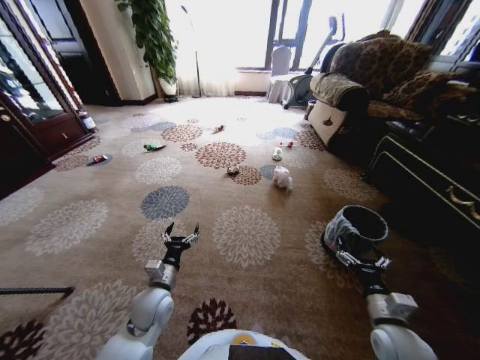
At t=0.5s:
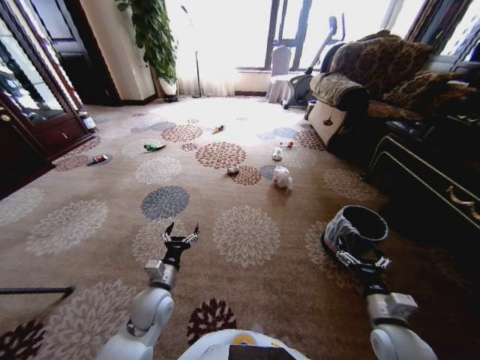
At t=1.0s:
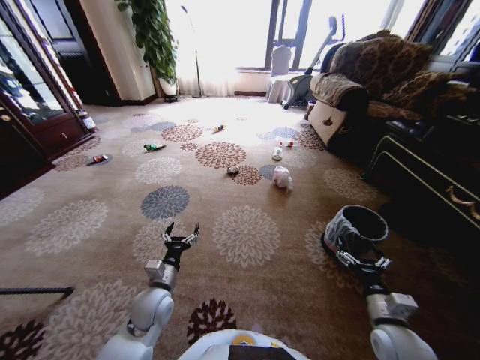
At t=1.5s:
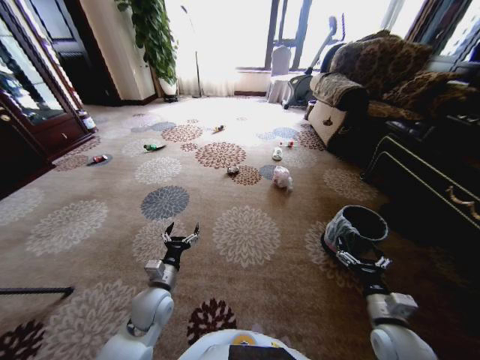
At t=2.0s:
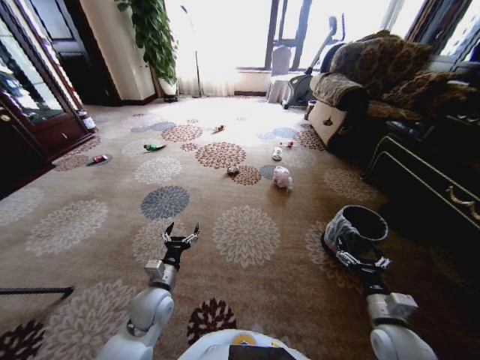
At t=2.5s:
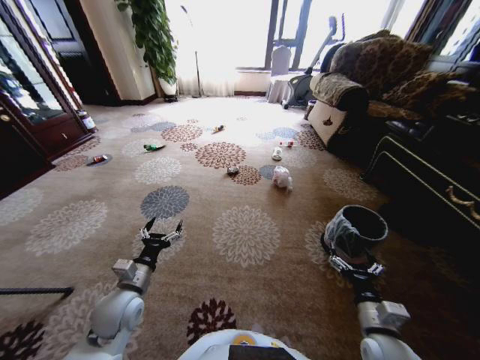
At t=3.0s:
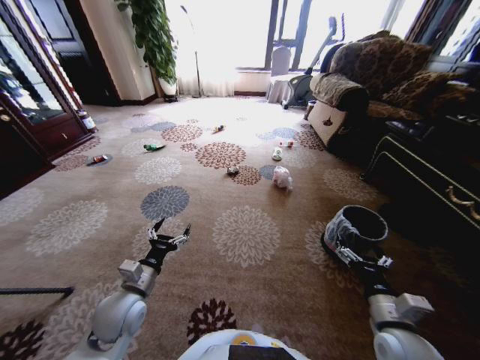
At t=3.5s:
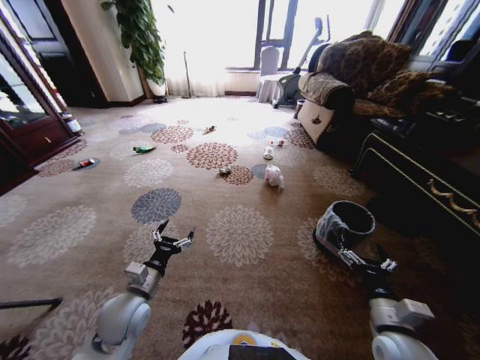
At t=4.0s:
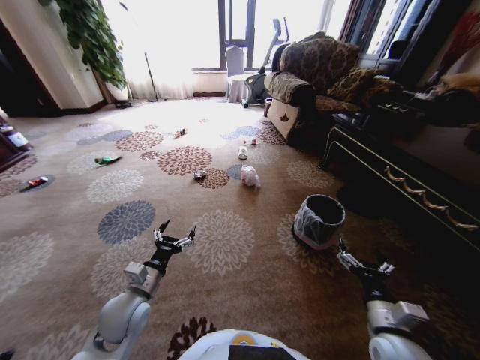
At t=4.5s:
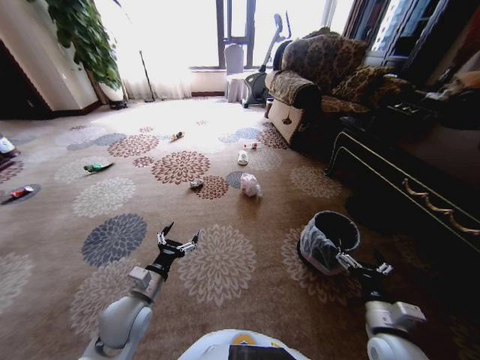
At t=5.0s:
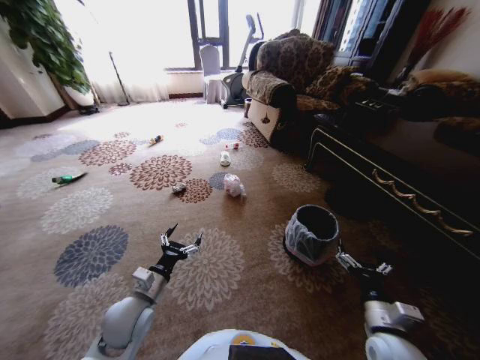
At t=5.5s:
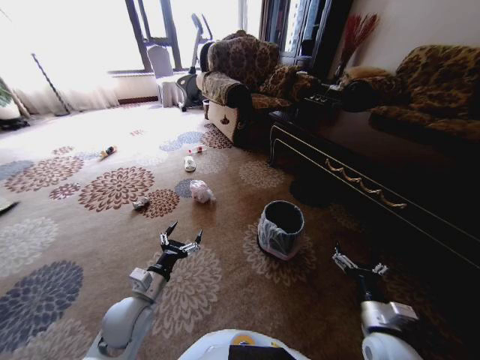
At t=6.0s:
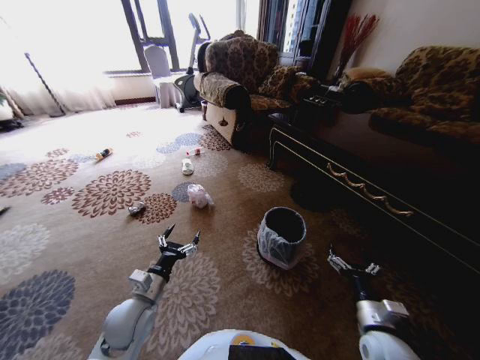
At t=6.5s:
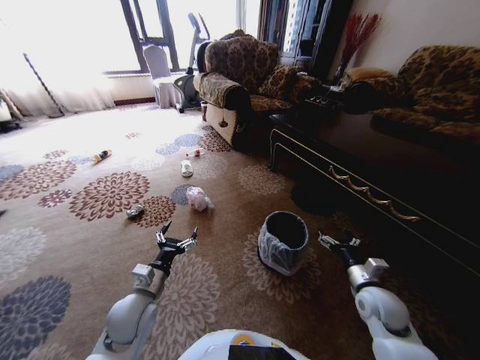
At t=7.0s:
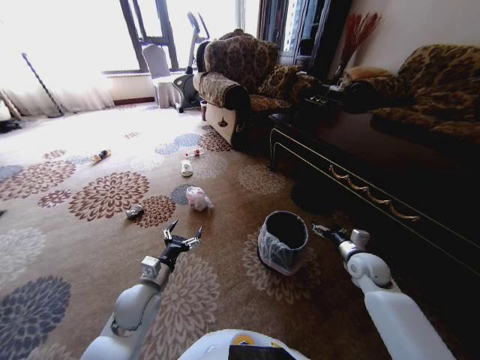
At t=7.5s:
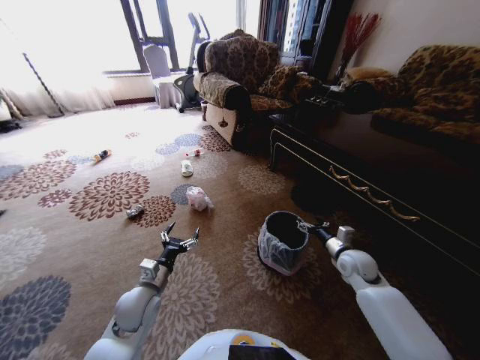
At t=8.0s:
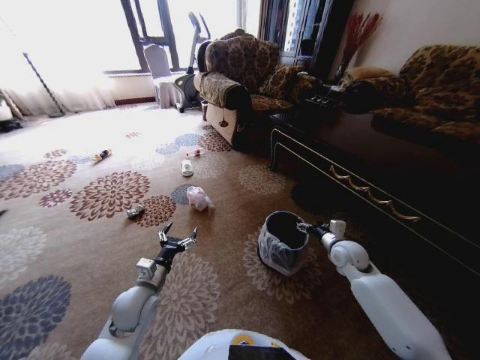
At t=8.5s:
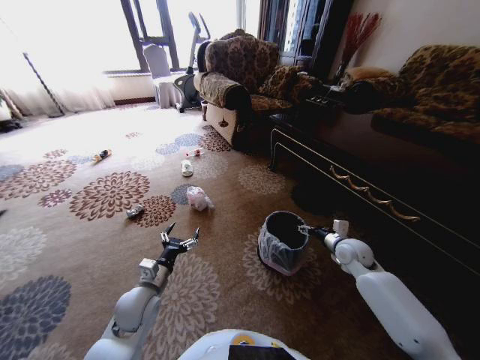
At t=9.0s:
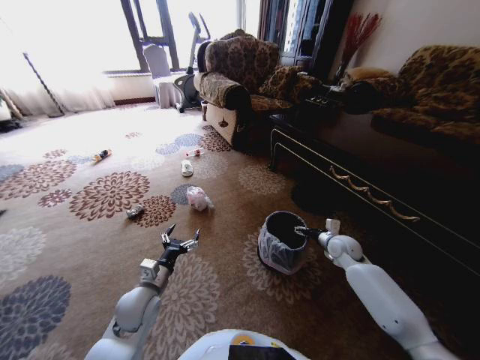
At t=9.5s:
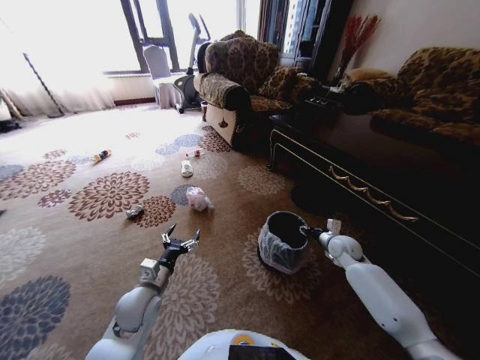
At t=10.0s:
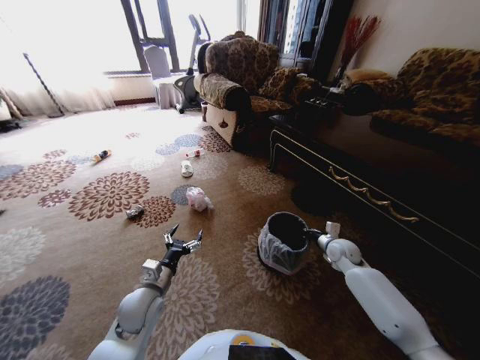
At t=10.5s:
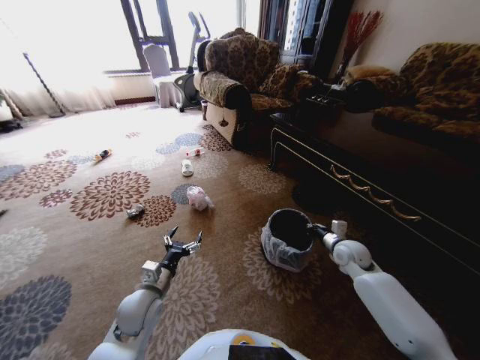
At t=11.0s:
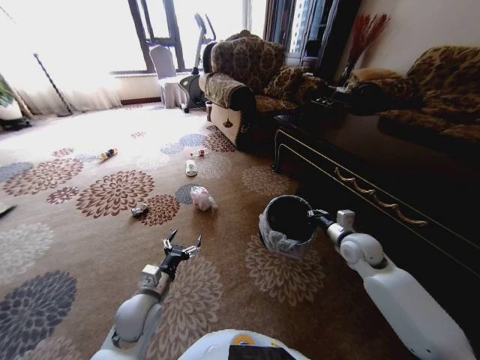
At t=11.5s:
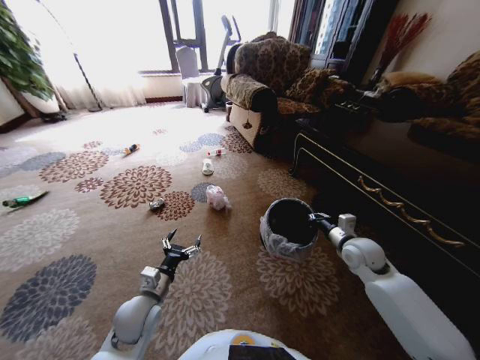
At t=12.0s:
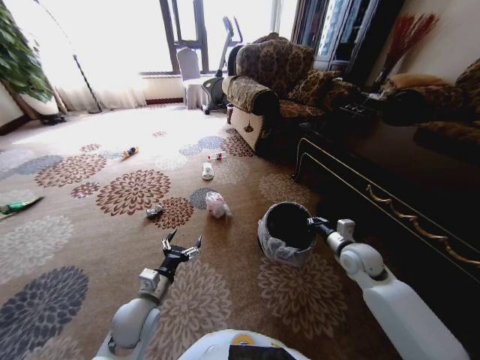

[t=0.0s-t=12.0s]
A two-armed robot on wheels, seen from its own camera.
Task of the whole recording: Pick up the trash from the ground and place it into the trash bin.
t=2.0s to t=4.0s: The left gripper moves approximately 5 cm.
t=6.0s to t=8.0s: The right gripper travels forward by roughly 25 cm.
t=8.0s to t=10.0s: The right gripper moves about 5 cm, and closes its fingers.
t=10.0s to t=12.0s: The right gripper shifts about 10 cm upward and backward.

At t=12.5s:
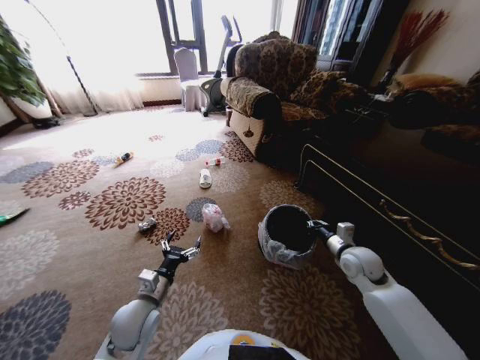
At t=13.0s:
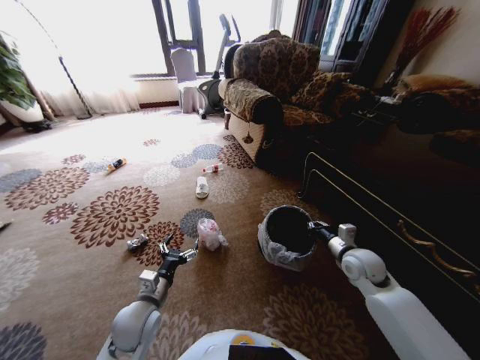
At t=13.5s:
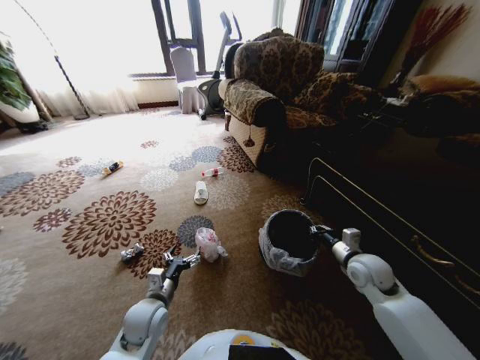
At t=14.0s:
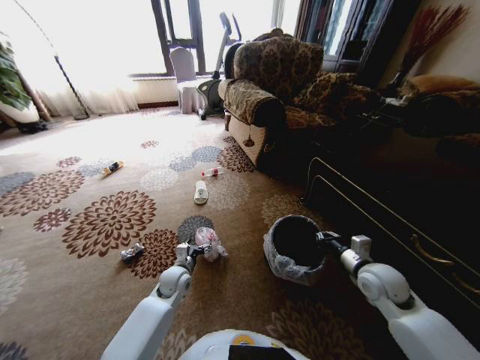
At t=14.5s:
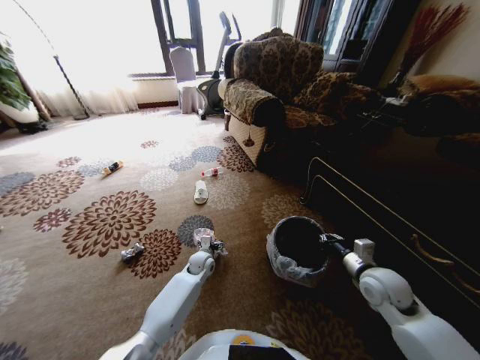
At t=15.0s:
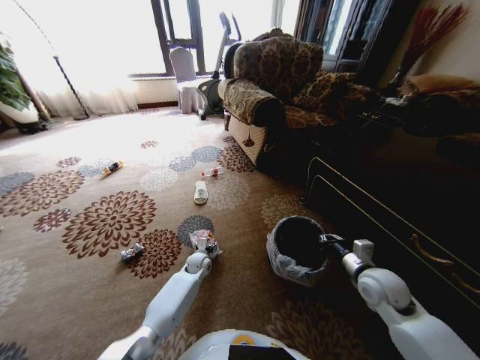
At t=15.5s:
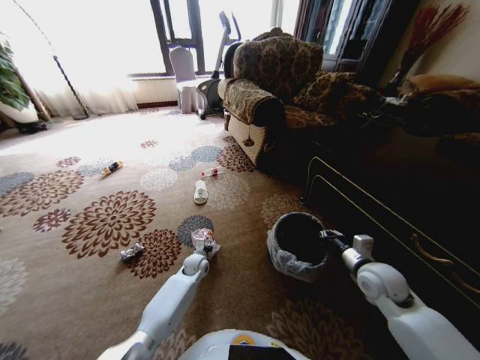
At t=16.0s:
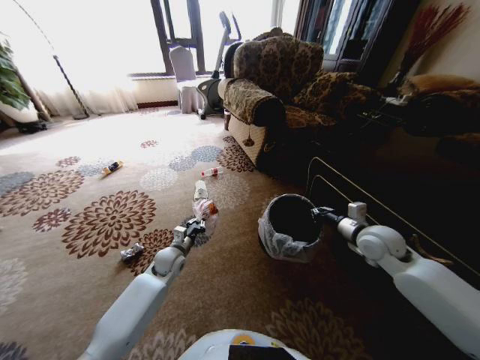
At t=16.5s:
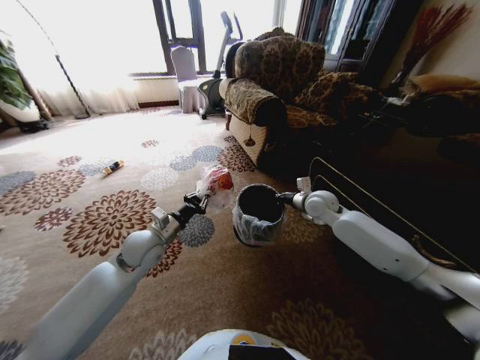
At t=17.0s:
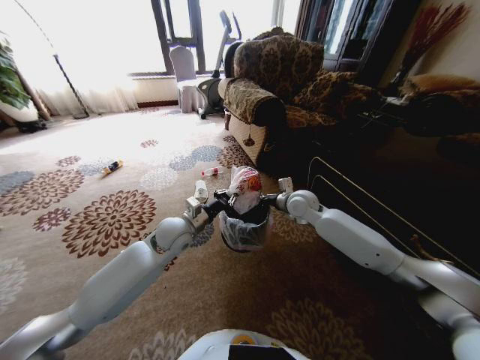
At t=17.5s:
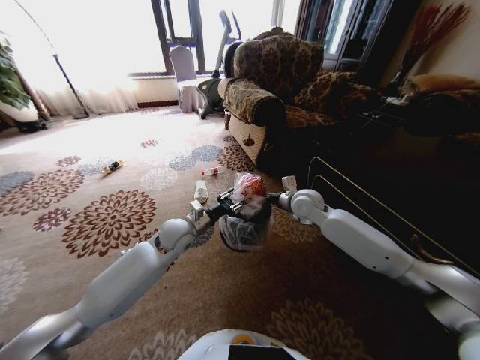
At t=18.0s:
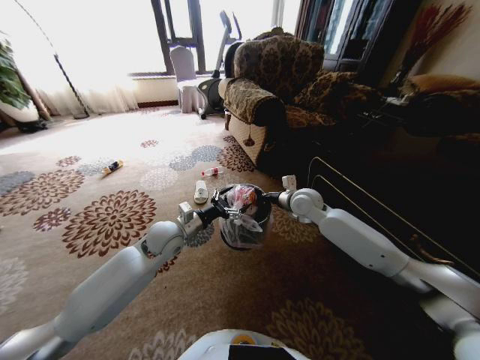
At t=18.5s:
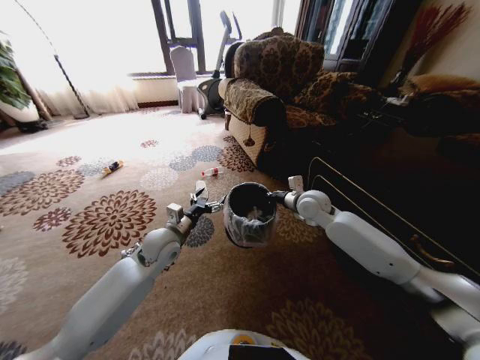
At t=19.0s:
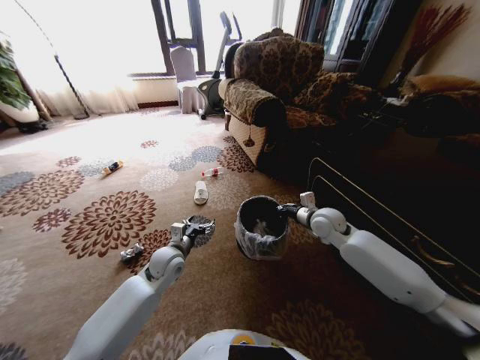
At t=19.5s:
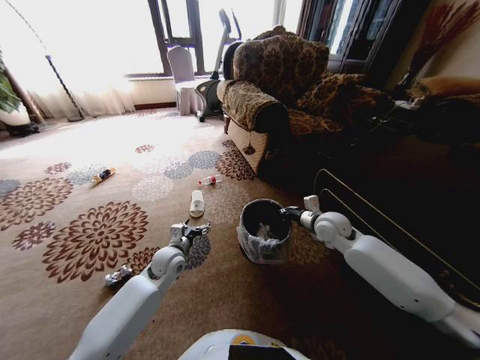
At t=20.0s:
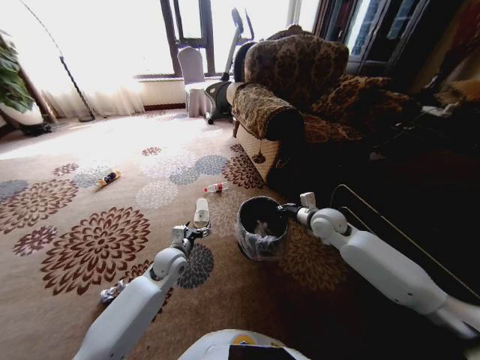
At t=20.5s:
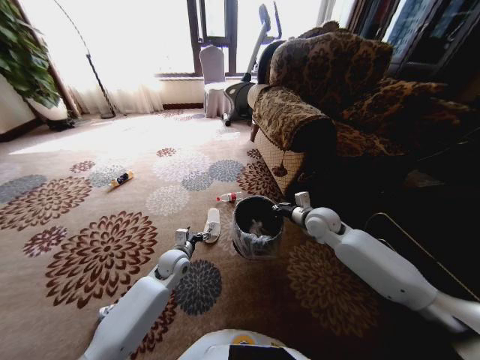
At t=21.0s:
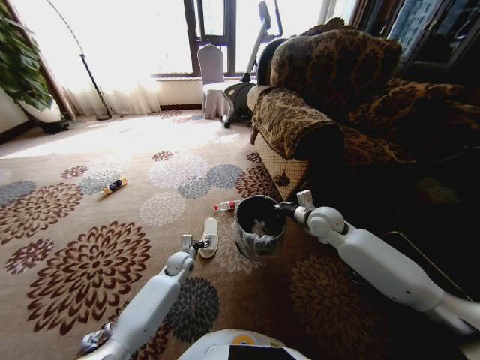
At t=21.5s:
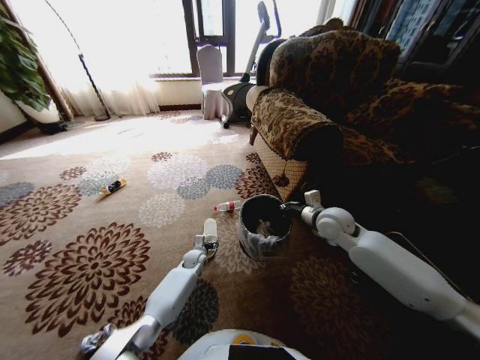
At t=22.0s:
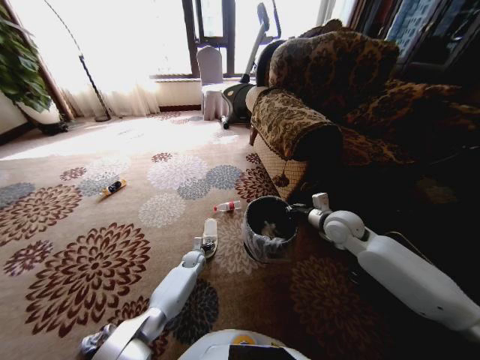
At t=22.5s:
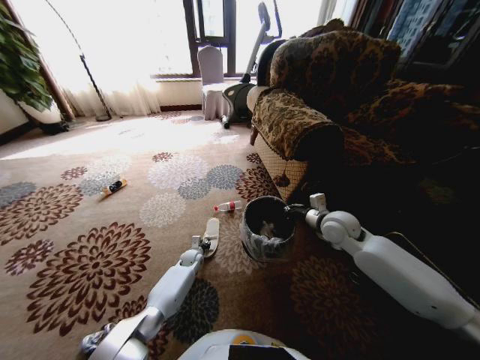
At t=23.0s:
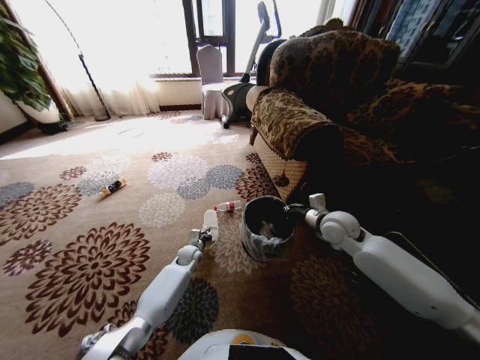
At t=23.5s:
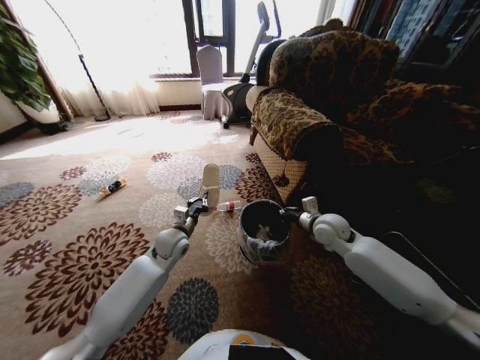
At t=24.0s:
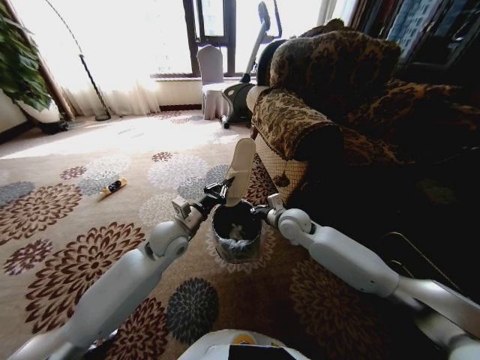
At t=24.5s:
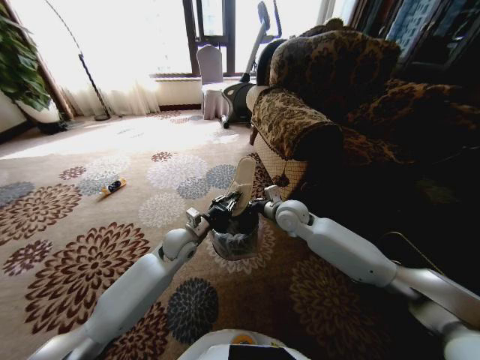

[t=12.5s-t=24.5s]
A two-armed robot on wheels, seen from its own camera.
Task of the whole recording: Pick up the trash from the ground and place it into the trash bin.
t=12.5s to t=14.5s: The left gripper moves forward, downward and to the right, some 25 cm. Meanwhile the right gripper heads backward, covering about 5 cm.
t=14.5s to t=16.5s: The left gripper moves upward and to the left, some 25 cm, and closes its fingers, while the right gripper heads forward and to the left, covering approximately 25 cm.
t=16.5s to t=18.5s: The left gripper opens up.
t=18.5s to t=20.5s: The left gripper is displaced downward by some 15 cm, while the right gripper moves approximately 5 cm.
t=20.5s to t=22.5s: The left gripper is displaced downward and forward by roughly 20 cm, and closes up.
t=22.5s to t=24.5s: The left gripper moves upward, some 25 cm; the right gripper moves to the left, approximately 15 cm.

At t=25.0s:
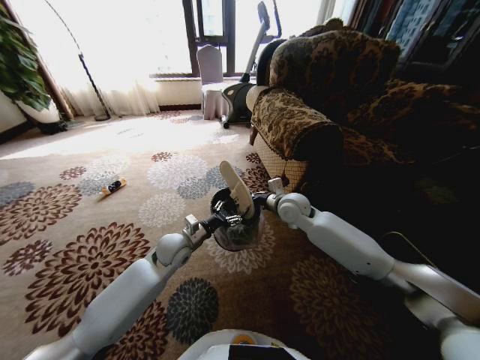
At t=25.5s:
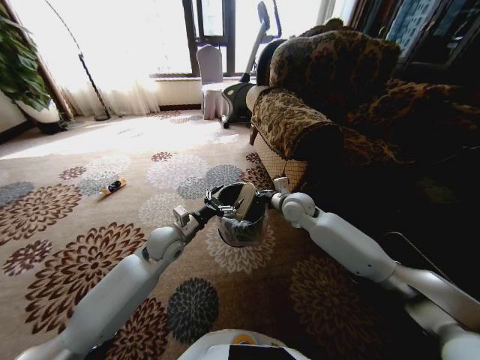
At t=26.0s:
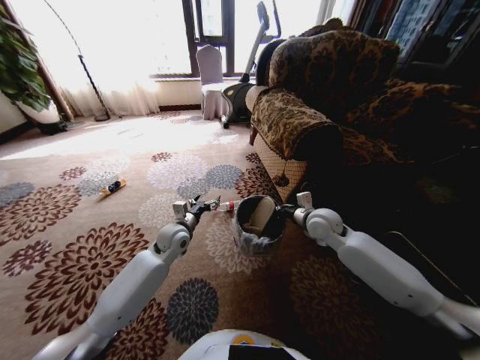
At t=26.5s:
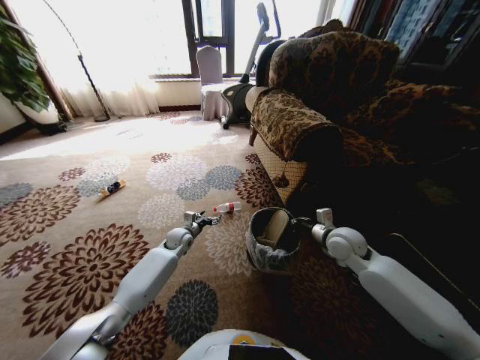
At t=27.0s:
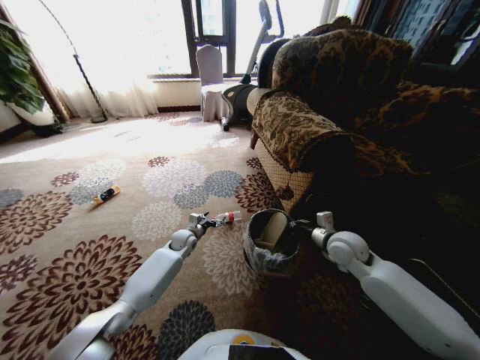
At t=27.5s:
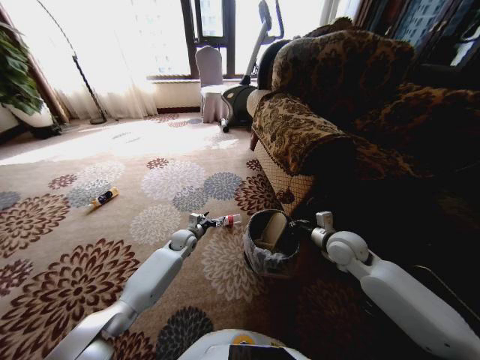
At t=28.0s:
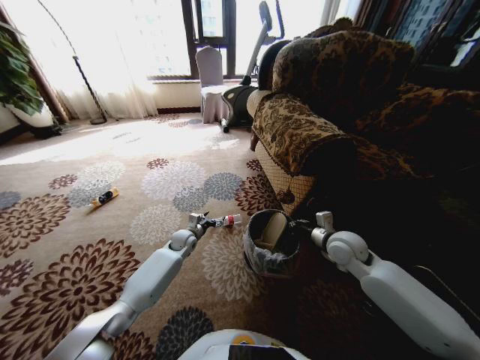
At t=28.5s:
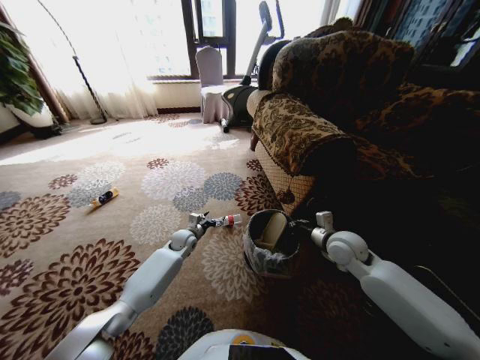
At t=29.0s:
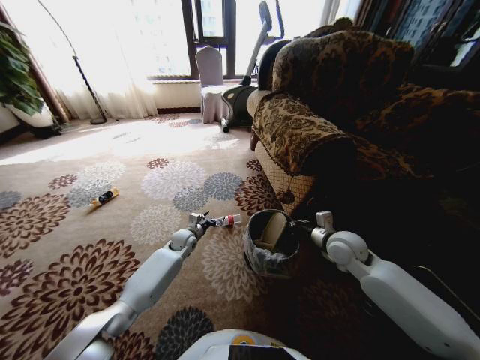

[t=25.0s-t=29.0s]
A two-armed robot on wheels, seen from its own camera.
Task of the whole recording: Pick up the trash from the ground and place it into the trash bin.
t=25.0s to t=27.0s: The right gripper is displaced to the right and backward by approximately 15 cm, while the left gripper goes some 15 cm downward and forward.
t=27.0s to t=29.0s: The two grippers keep their place.
